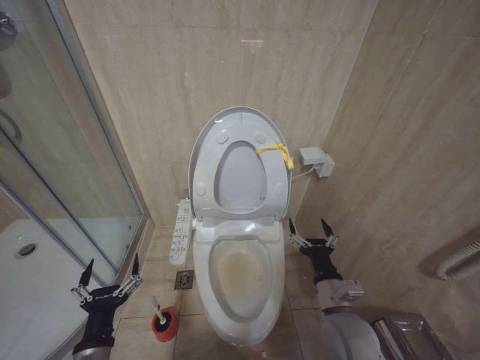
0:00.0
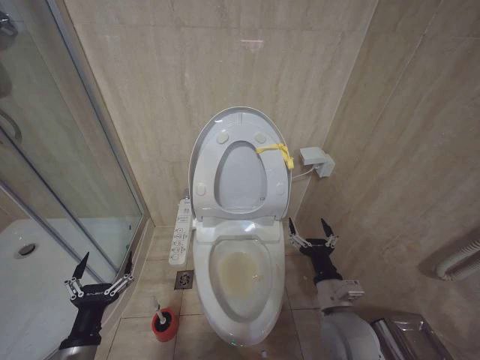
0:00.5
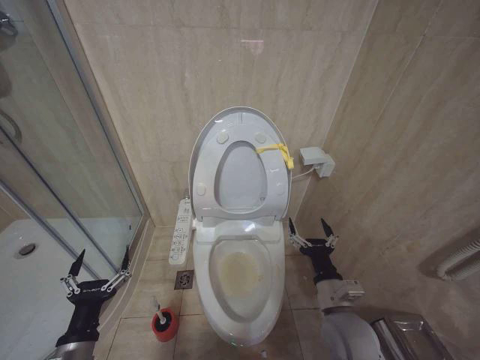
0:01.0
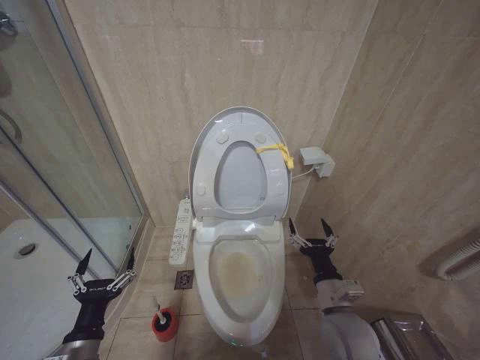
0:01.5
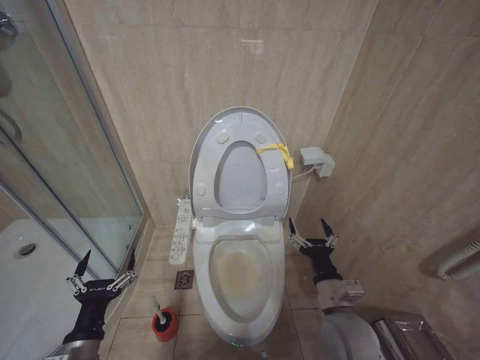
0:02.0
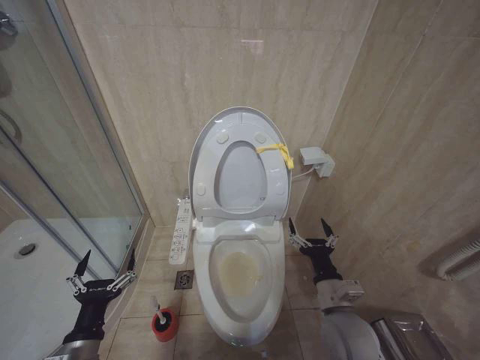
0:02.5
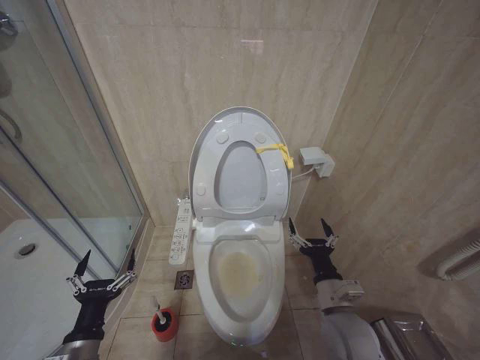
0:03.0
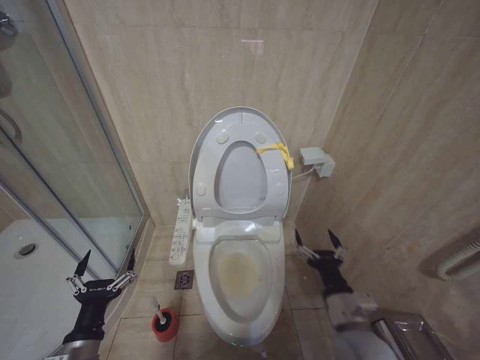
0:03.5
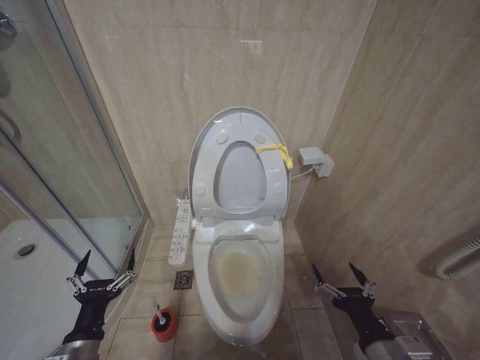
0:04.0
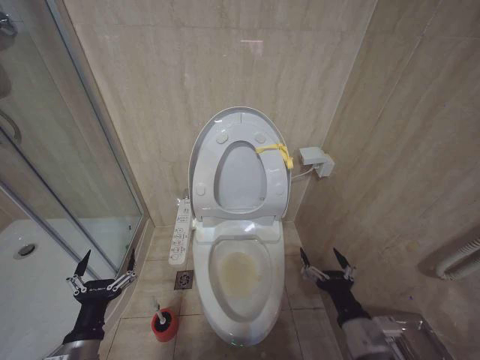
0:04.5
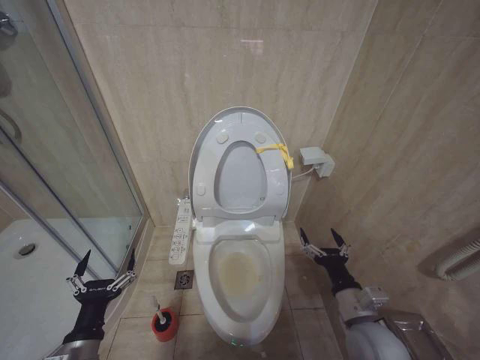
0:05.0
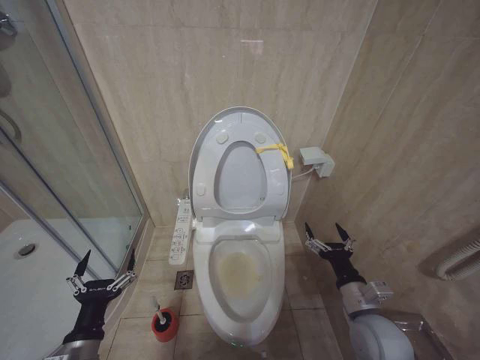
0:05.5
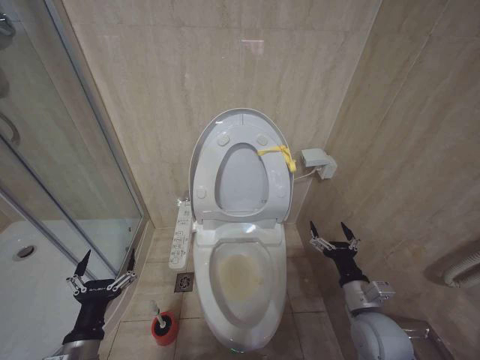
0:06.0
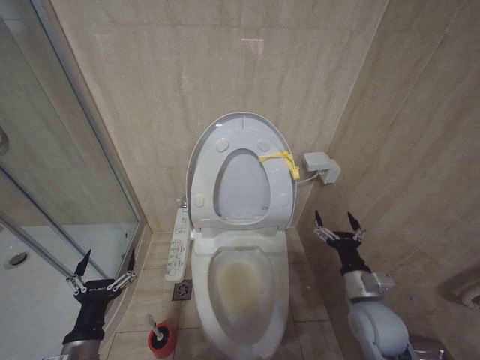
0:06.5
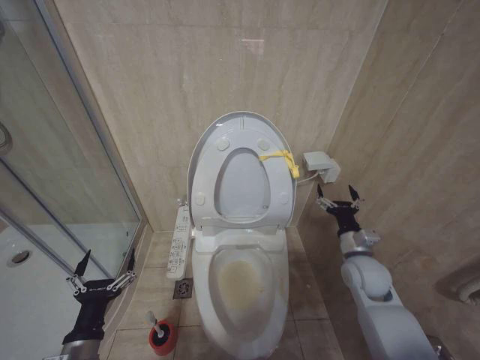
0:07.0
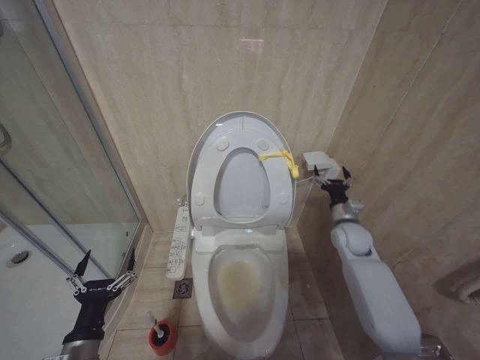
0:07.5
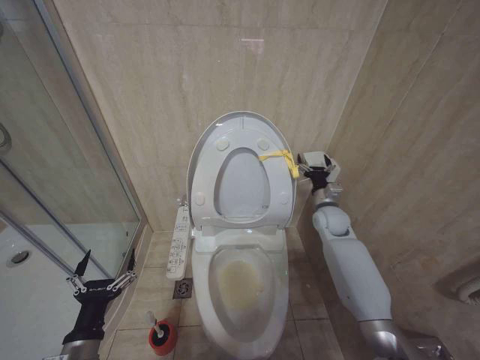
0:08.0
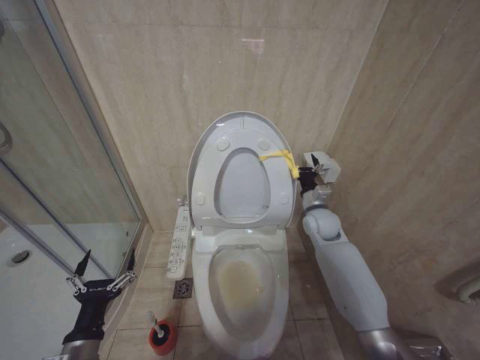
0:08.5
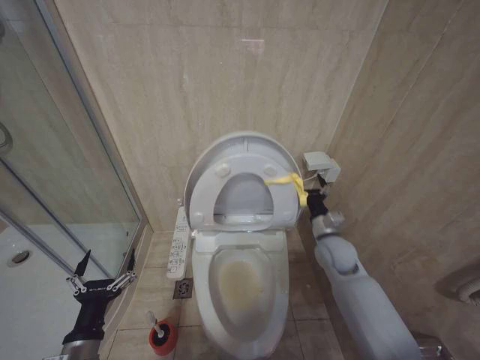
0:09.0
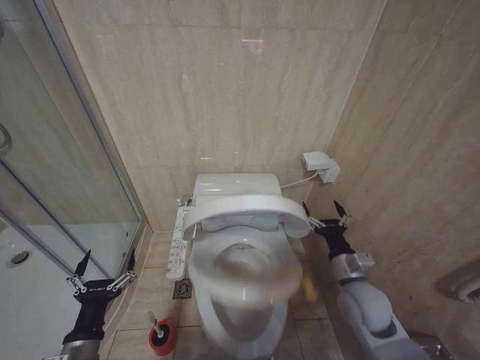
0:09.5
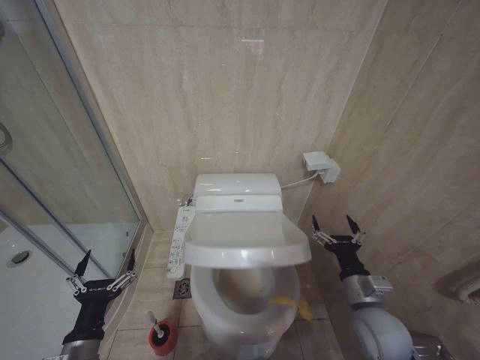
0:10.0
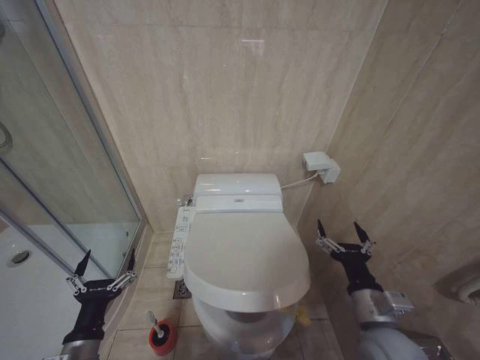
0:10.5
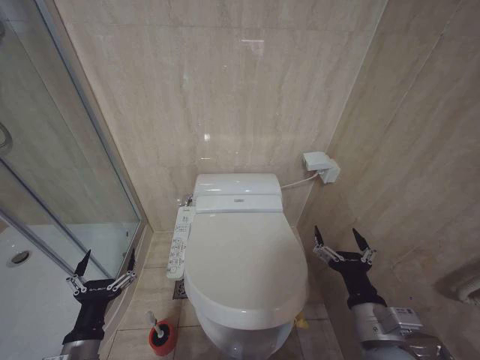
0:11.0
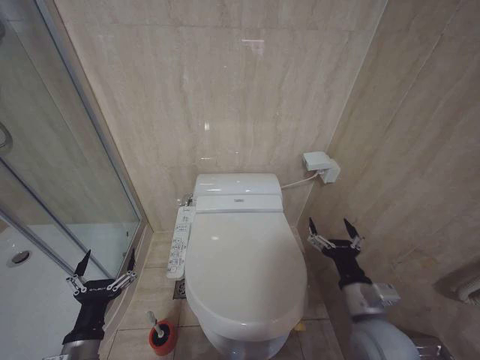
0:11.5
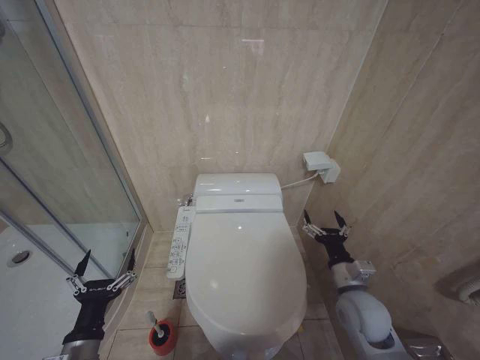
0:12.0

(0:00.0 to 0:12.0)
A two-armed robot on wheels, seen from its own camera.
Task of the whole recording: Open the toilet lid, clean the toilet bowl with a toilet brush, close the toilet lid, and flush.
0:00.0 - 0:02.0: The grippers move only a little.
0:02.0 - 0:04.0: The right gripper is displaced backward by approximately 10 cm.
0:04.0 - 0:06.0: The right gripper shifts some 10 cm forward.
0:06.0 - 0:08.0: The right gripper is displaced forward by about 25 cm.
0:08.0 - 0:10.0: The right gripper travels backward by some 25 cm.
0:10.0 - 0:12.0: The right gripper goes backward and returns, some 10 cm each way.

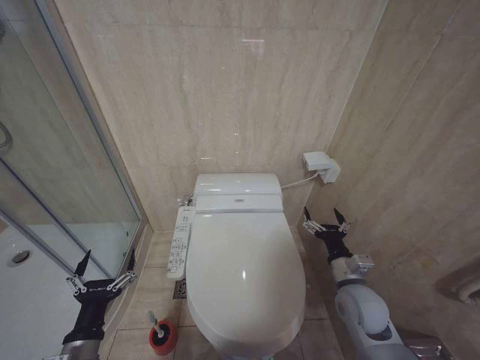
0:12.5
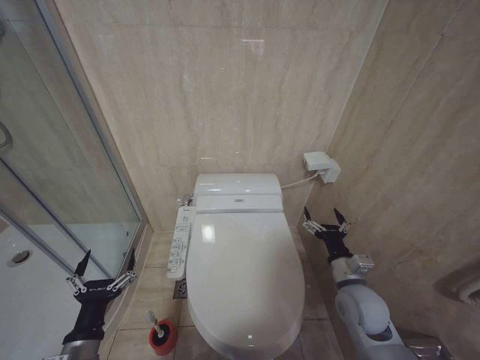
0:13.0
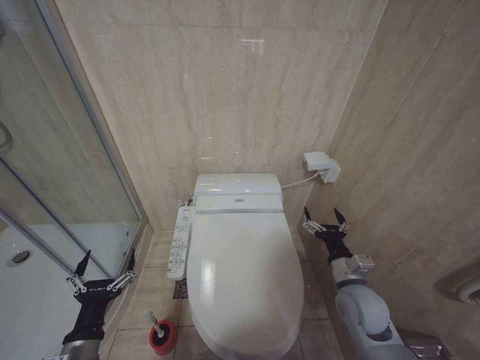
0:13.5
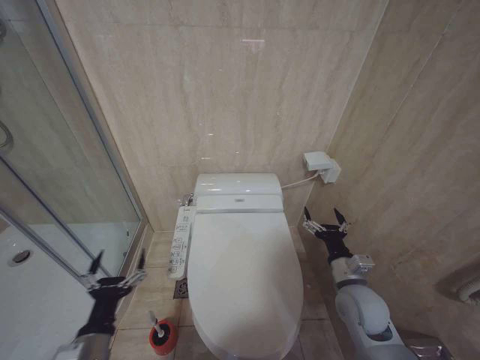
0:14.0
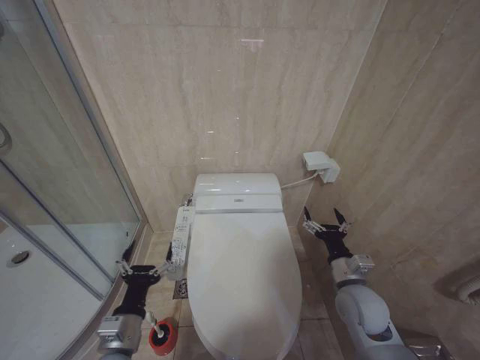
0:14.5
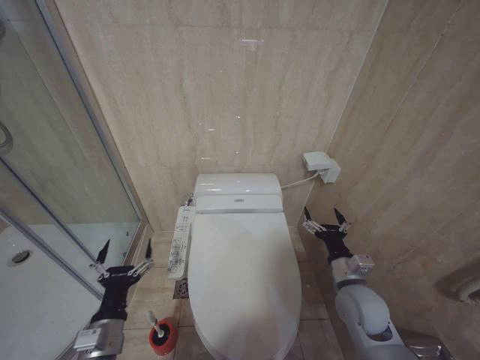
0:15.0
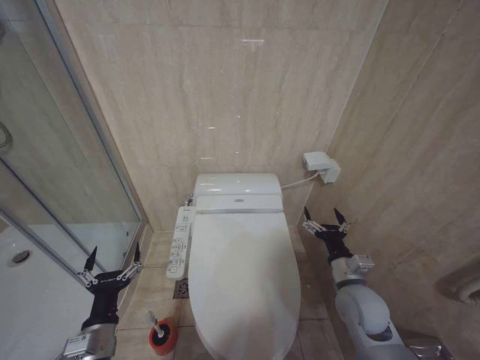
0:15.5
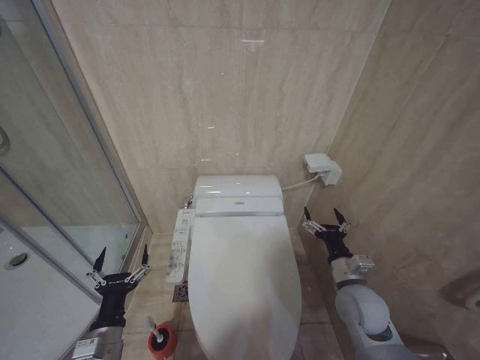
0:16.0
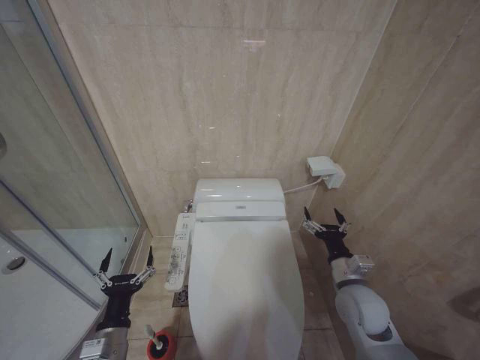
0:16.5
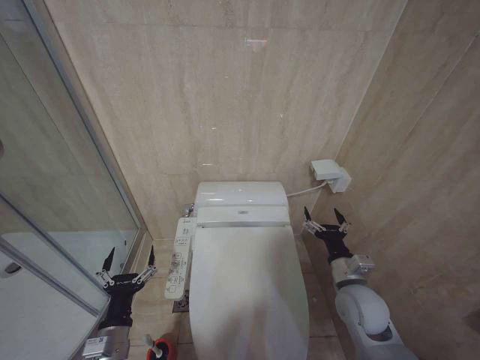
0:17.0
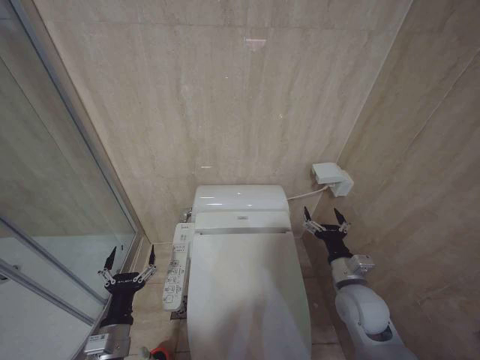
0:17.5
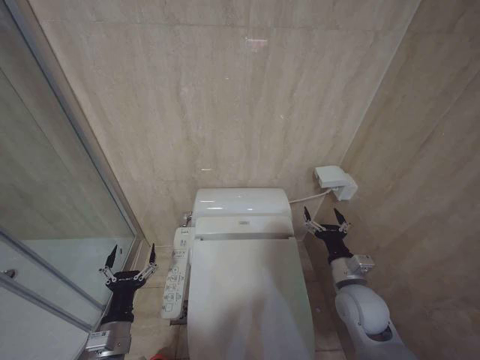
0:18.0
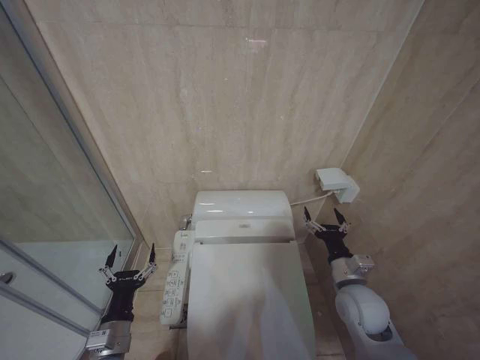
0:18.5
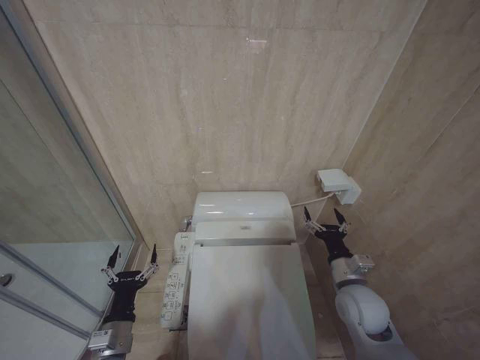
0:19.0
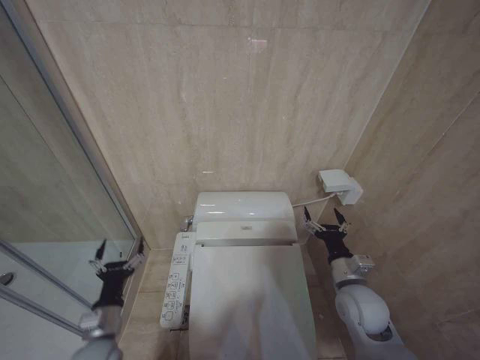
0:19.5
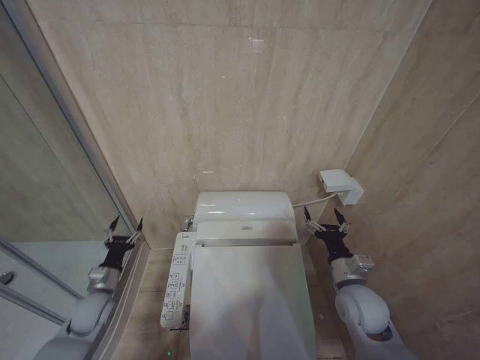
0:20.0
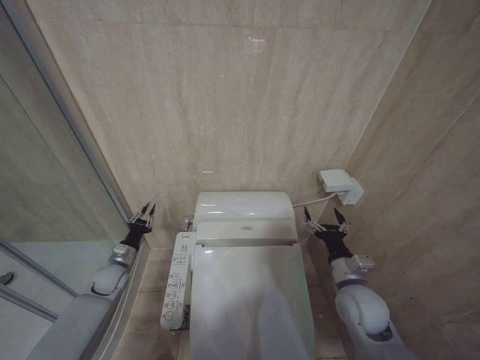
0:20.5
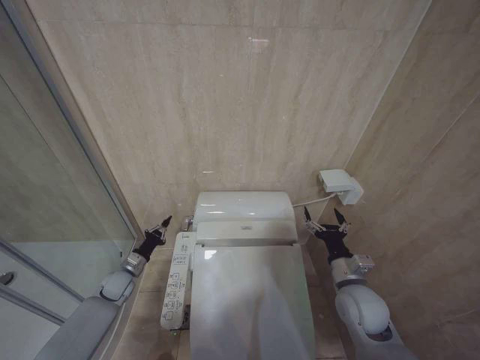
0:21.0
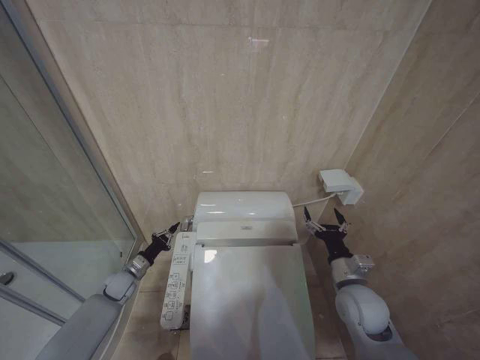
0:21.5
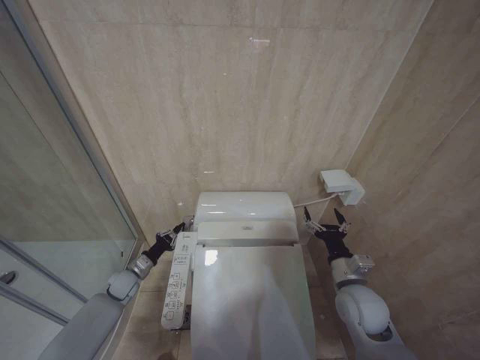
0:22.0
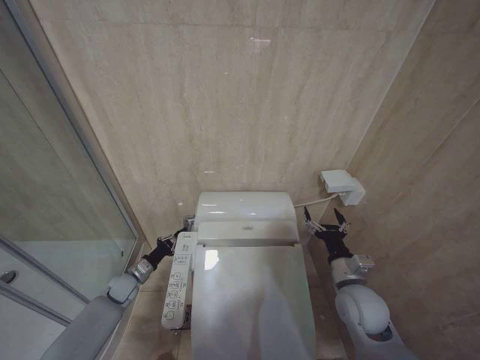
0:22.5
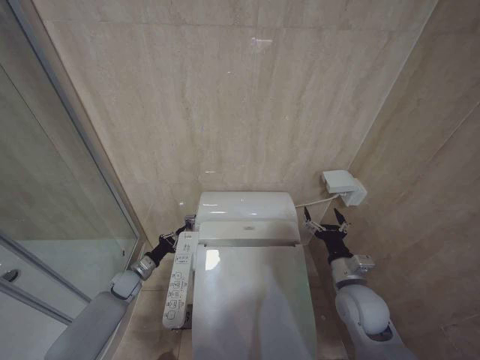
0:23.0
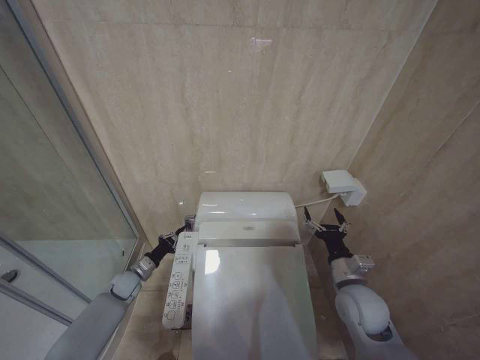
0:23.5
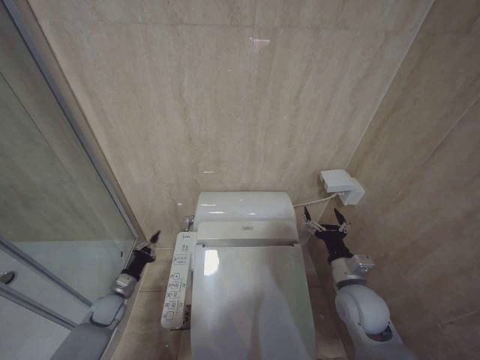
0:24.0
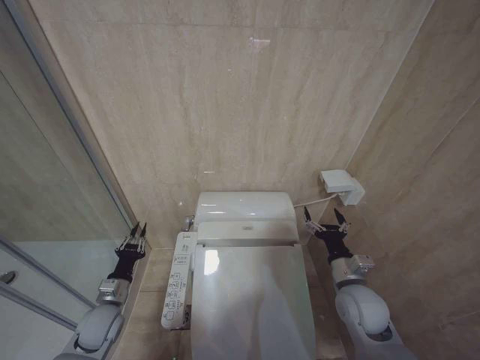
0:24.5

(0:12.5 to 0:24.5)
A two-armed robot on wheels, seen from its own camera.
Task of the whole recording: Open the toilet lid, clean the toilet bowl with a toilet brush, close the toilet lid, and flush.
0:12.5 - 0:14.5: The left gripper shifts approximately 5 cm to the right.
0:14.5 - 0:18.5: There are only small adjustments of the grippers.
0:18.5 - 0:20.5: The left gripper moves forward and to the left, approximately 25 cm, and closes up.
0:20.5 - 0:22.5: The left gripper is displaced downward by approximately 5 cm, and closes.
0:22.5 - 0:24.5: The left gripper heads backward and upward, covering about 10 cm.

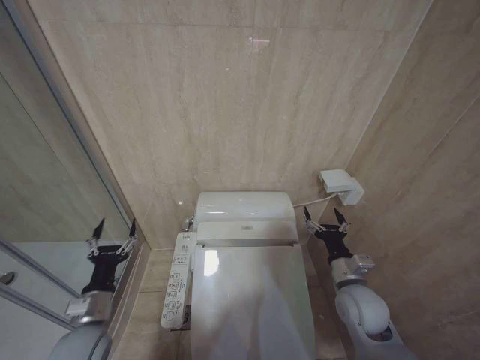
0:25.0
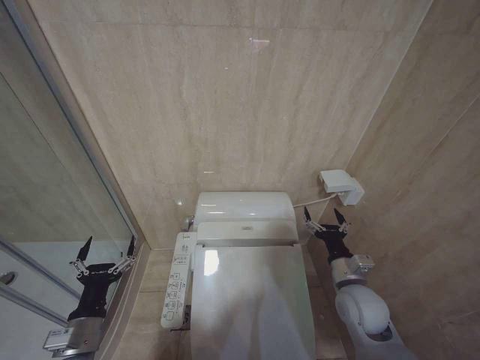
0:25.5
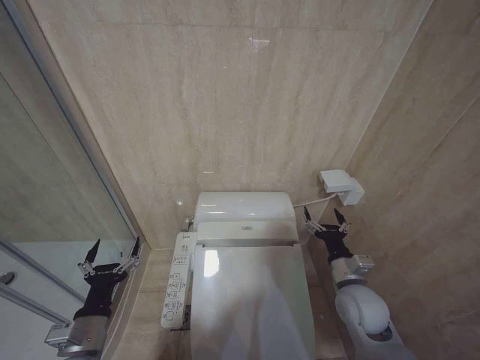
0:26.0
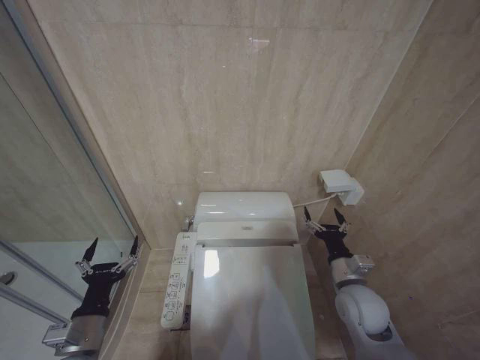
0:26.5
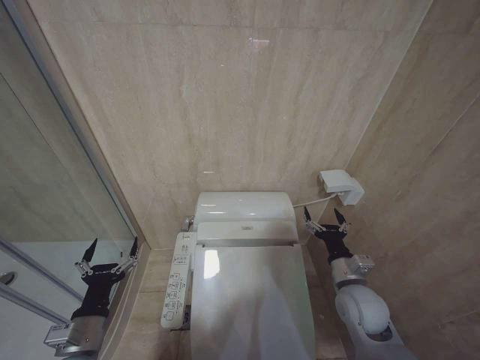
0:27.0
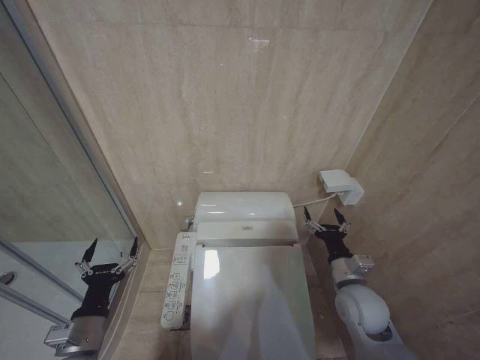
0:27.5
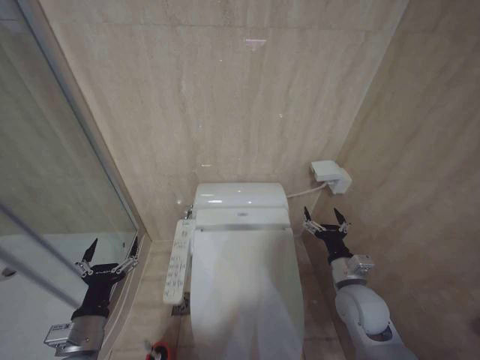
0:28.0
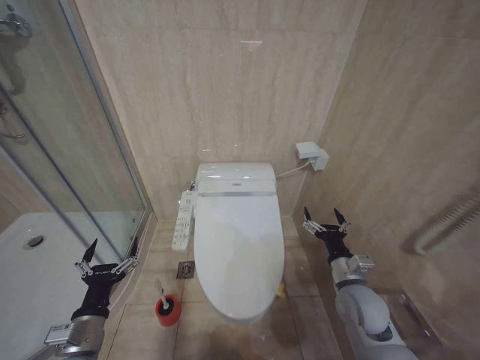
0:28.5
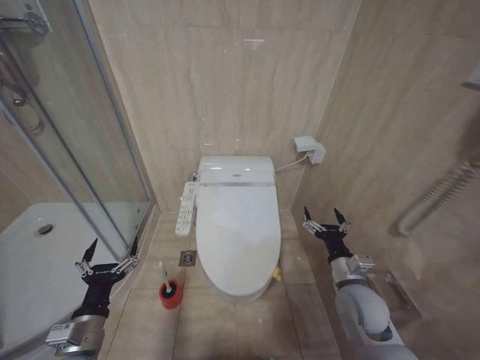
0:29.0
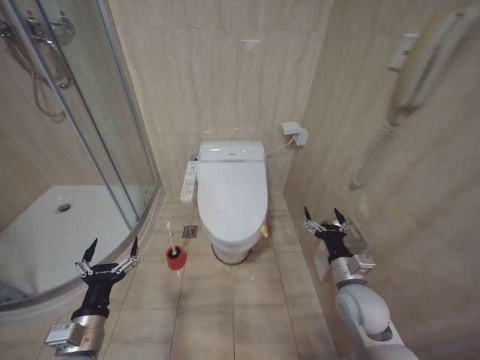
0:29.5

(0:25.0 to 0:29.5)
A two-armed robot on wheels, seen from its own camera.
Task of the whole recording: Open the toilet lid, clean the toilet bowl with a toilet brush, close the toilet lid, and flush.
0:25.0 - 0:27.0: The left gripper moves backward, approximately 5 cm, and opens up.
